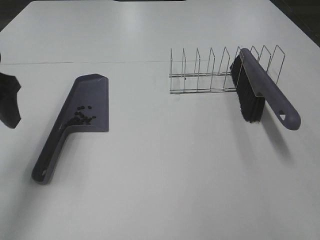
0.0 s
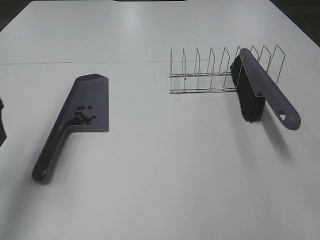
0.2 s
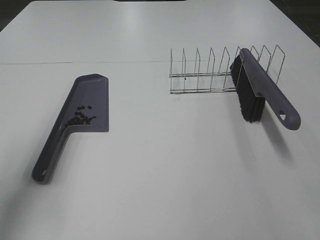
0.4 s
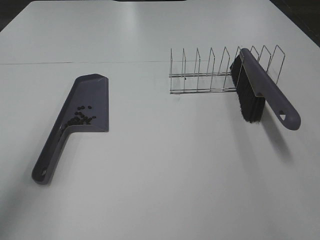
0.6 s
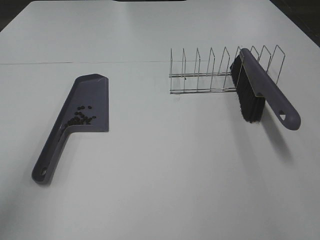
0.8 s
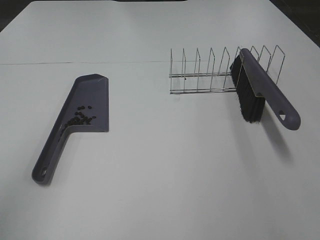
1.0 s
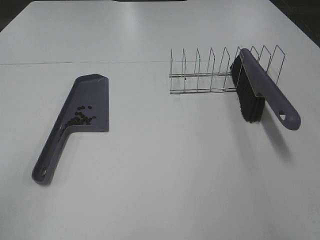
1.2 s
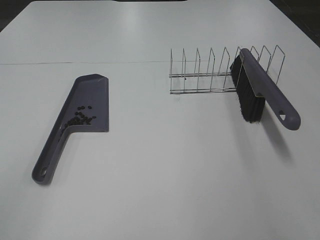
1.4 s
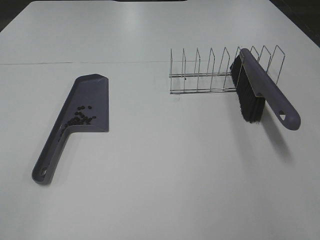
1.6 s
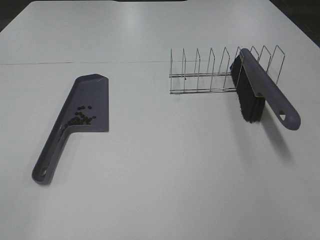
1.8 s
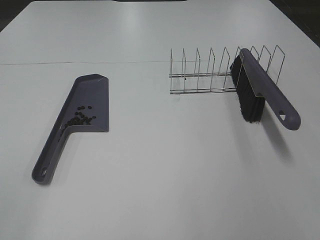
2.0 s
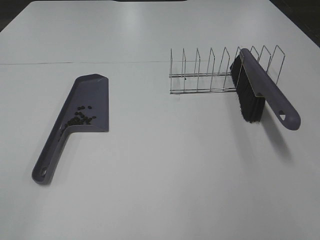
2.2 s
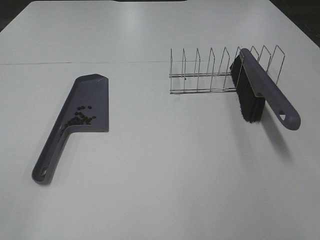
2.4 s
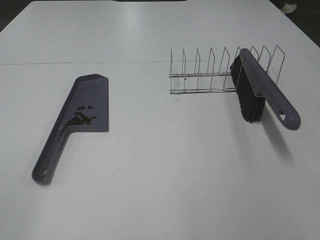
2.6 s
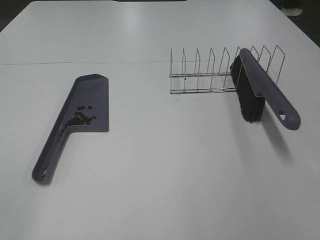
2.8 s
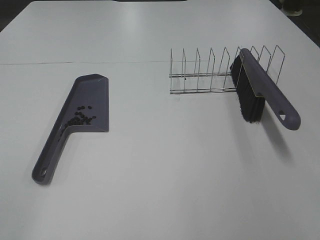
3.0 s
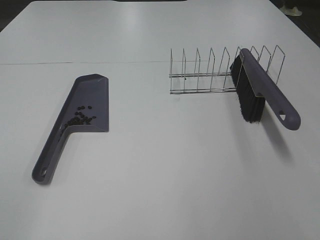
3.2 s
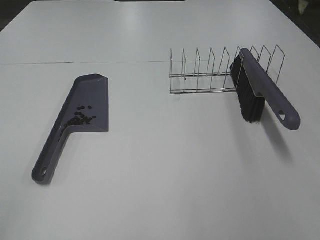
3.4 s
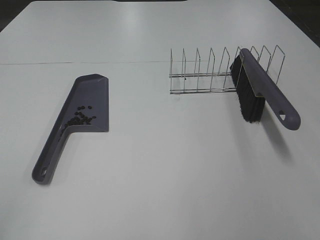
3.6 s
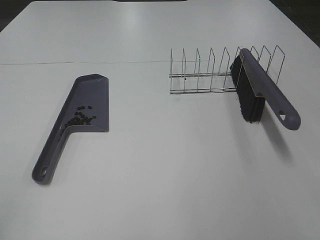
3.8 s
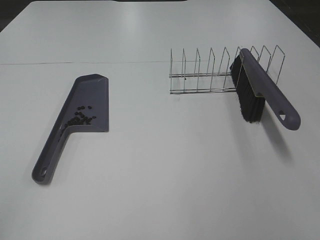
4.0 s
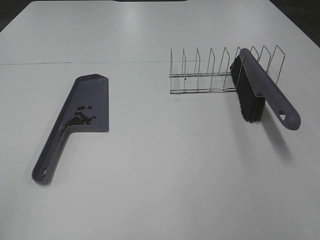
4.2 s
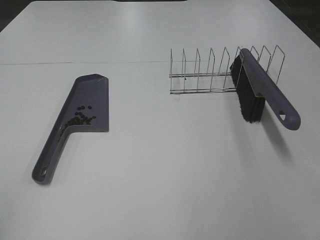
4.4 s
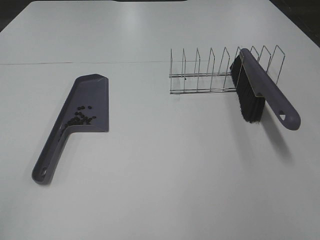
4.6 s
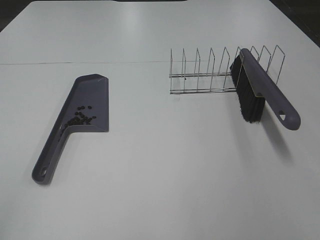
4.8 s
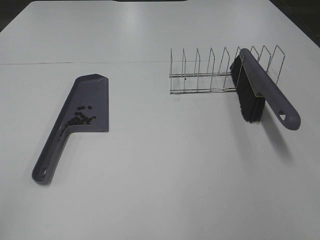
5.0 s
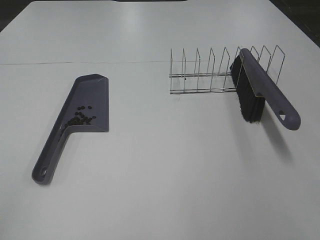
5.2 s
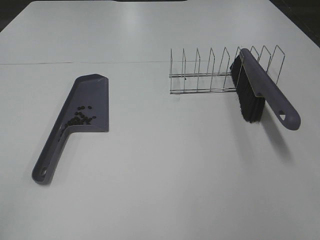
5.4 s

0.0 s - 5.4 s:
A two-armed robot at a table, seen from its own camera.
Task of the whole recording: Sweep Coffee Bean.
0.0 s - 1.4 s: The left gripper moves backward, approximately 25 cm.
4.0 s - 5.4 s: The two grippers keep their place.

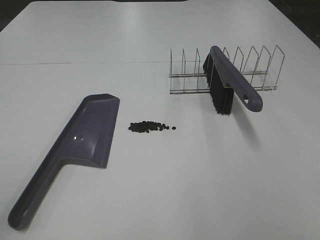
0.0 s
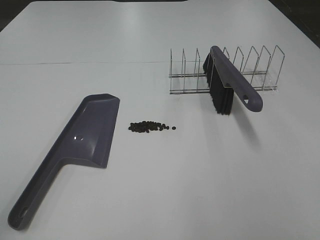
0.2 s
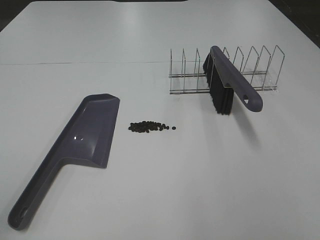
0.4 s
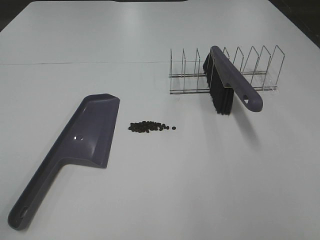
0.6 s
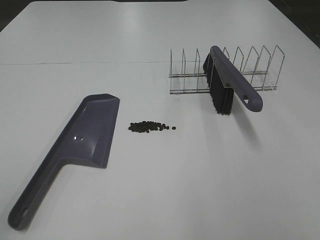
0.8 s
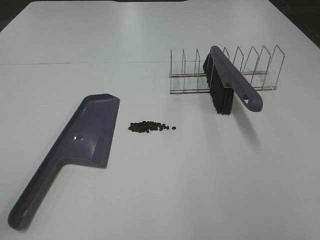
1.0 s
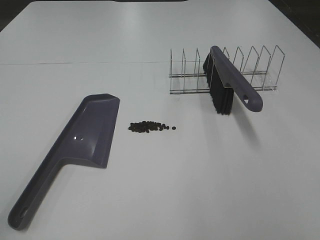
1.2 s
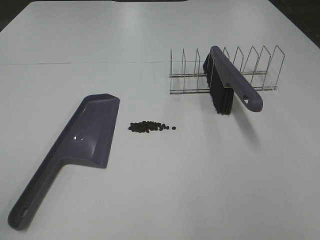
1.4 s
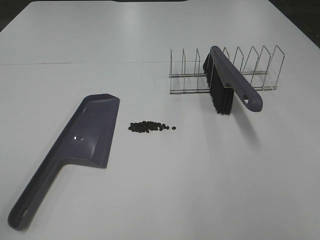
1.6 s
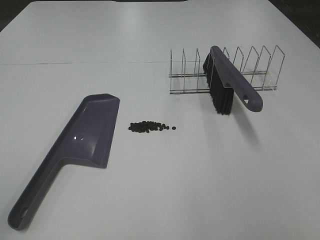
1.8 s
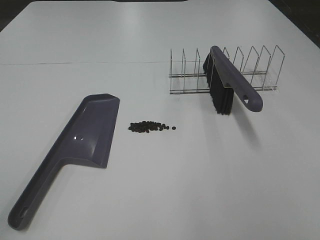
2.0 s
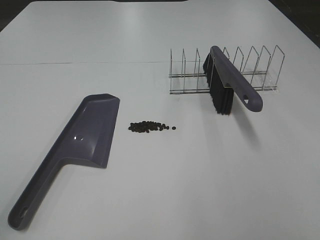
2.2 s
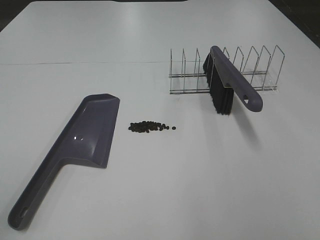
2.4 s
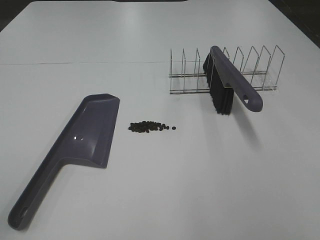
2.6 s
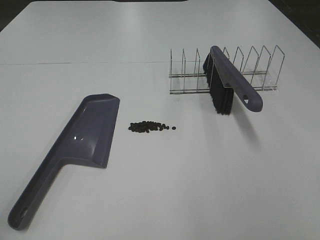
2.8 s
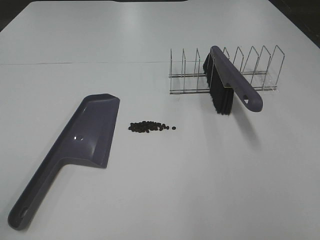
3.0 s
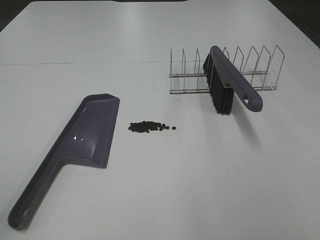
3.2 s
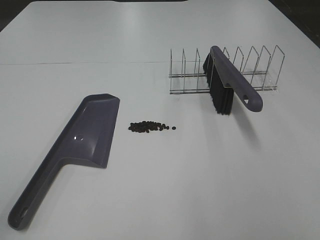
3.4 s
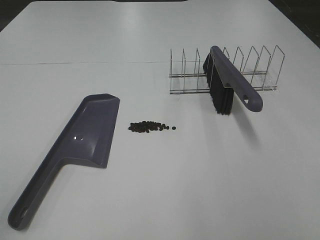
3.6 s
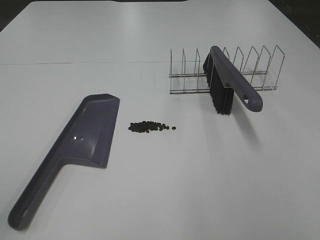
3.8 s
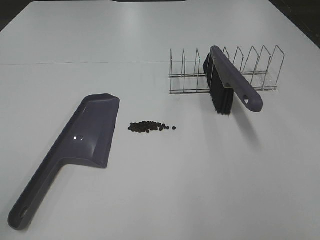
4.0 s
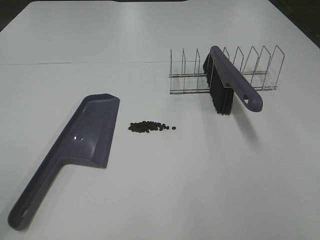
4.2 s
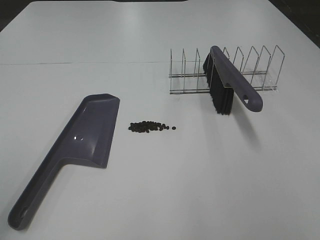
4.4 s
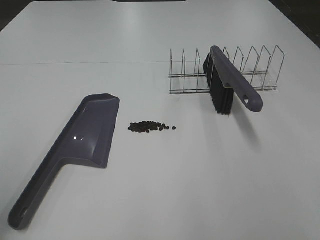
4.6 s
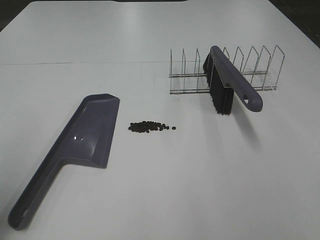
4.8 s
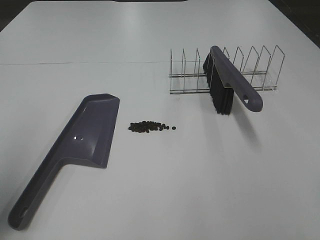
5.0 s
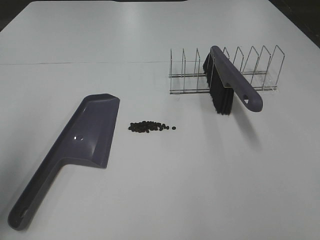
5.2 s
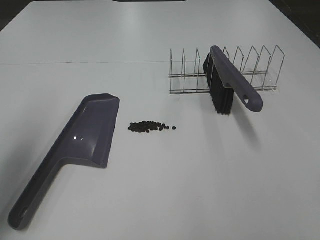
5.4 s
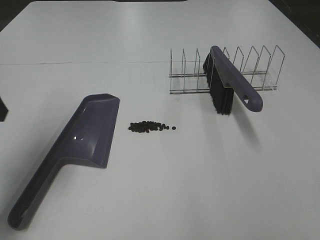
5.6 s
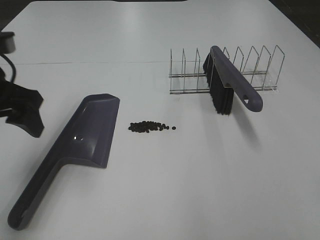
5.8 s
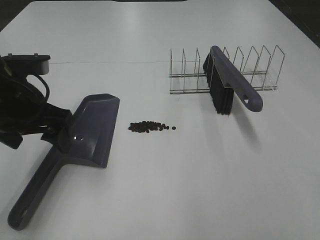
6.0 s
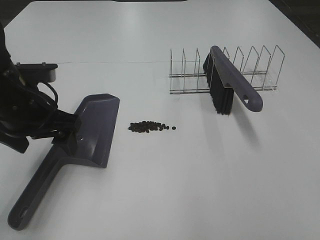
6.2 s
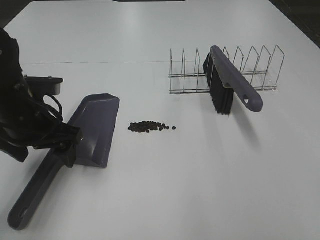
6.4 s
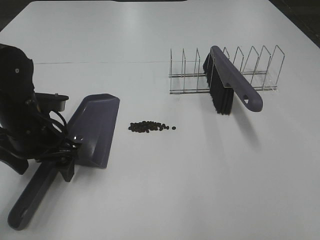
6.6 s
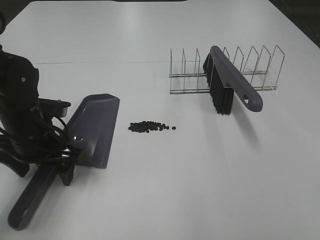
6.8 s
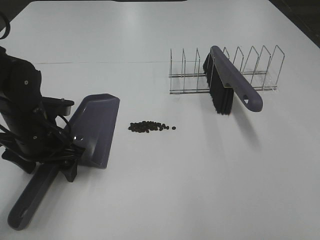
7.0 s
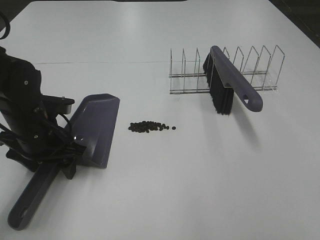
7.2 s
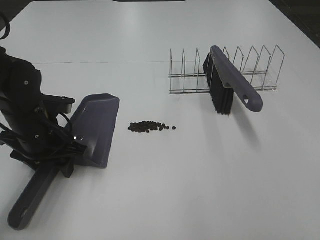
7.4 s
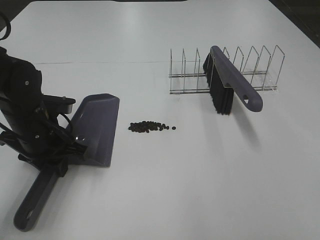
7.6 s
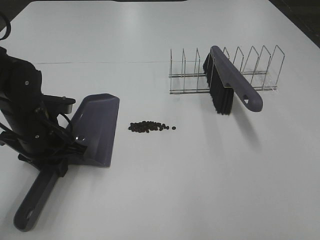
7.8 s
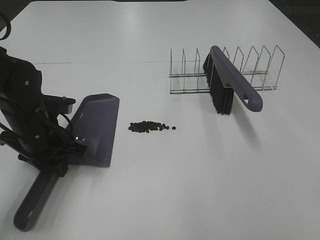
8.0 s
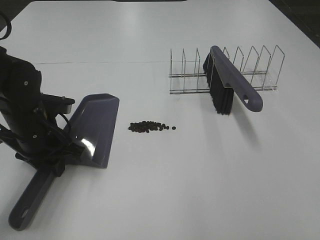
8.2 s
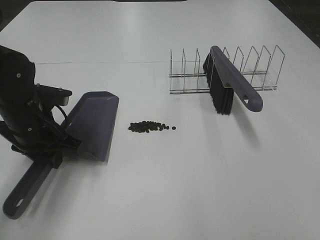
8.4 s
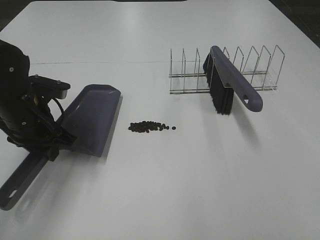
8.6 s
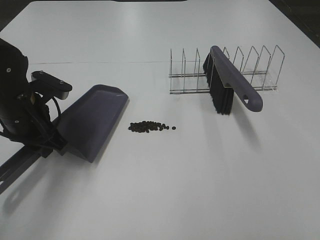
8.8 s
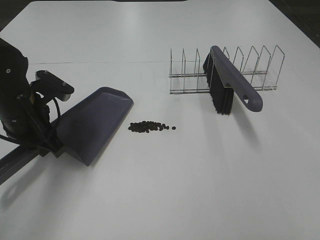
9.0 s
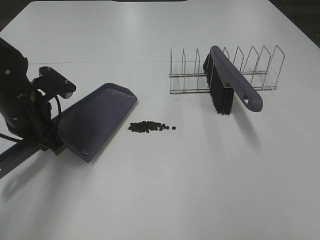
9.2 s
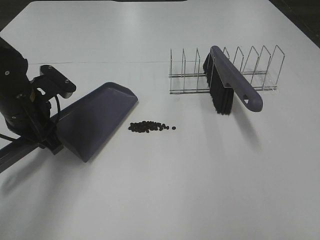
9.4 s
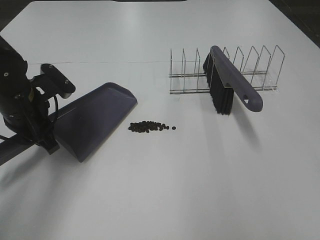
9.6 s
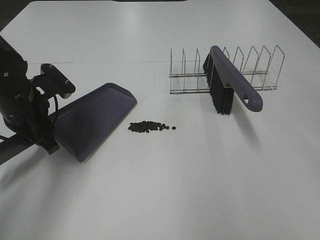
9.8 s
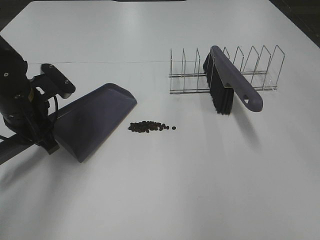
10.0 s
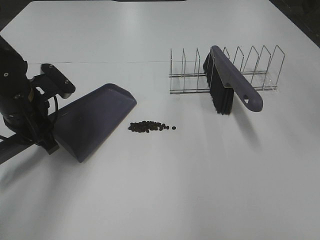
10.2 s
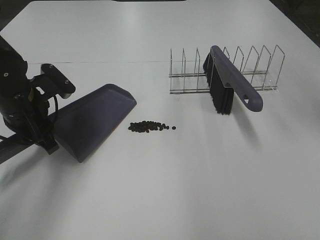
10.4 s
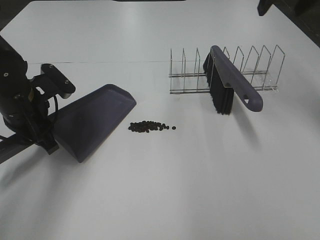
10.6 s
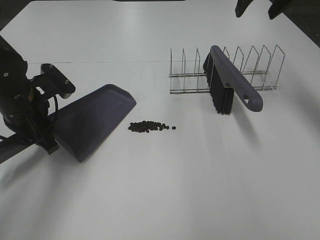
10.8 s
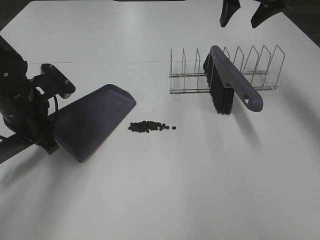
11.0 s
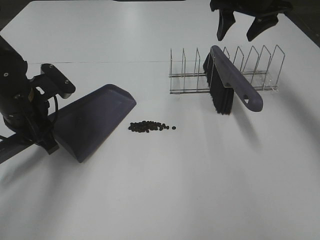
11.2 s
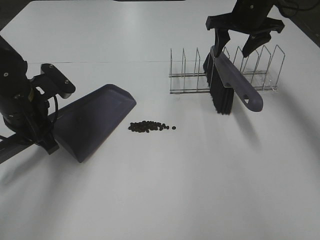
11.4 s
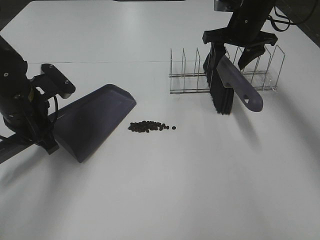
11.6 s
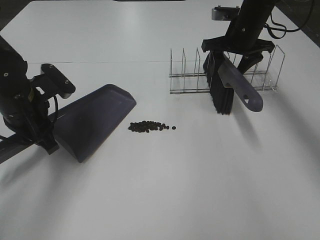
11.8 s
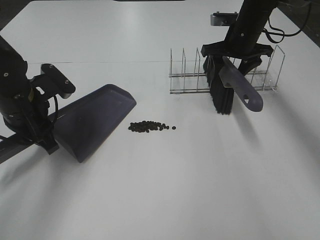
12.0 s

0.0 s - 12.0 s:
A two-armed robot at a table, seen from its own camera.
Task of the whole recording: Sweep Coffee Bean.
Step, 0.0 s - 7.8 s: Left hand: grab the dustpan.
0.0 s - 3.0 s: Both grippers stay put.
4.4 s - 6.0 s: The left gripper goes about 30 cm forward, to the right and downward.
6.0 s - 7.6 s: The left gripper goes roughly 10 cm downward, and closes.
9.0 s - 10.4 s: The right gripper travels forward by some 35 cm.
10.4 s - 12.0 s: The right gripper shifts roughly 25 cm downward and forward.

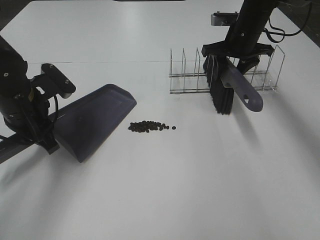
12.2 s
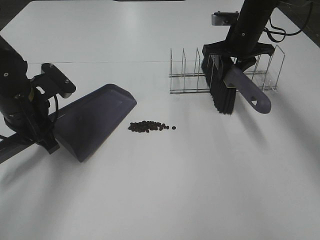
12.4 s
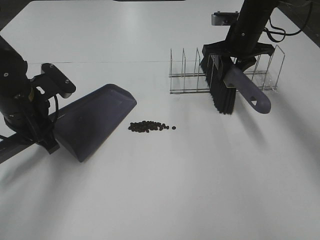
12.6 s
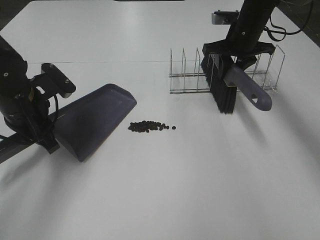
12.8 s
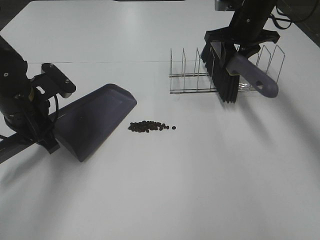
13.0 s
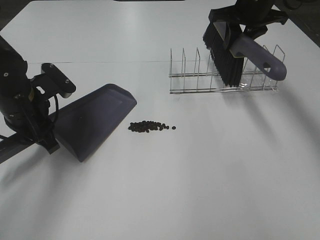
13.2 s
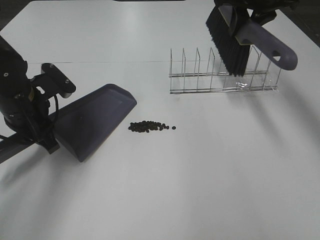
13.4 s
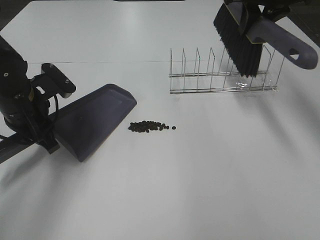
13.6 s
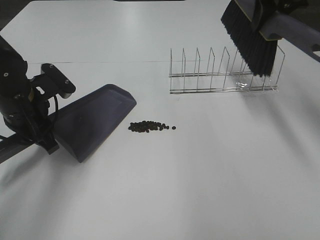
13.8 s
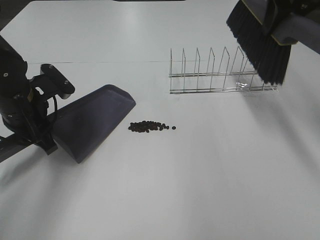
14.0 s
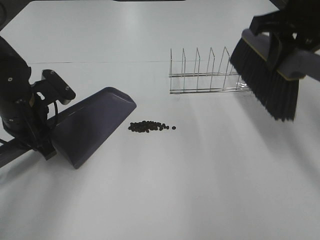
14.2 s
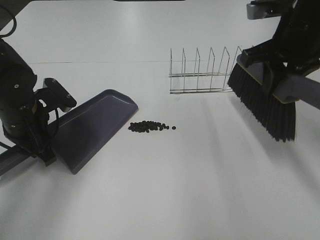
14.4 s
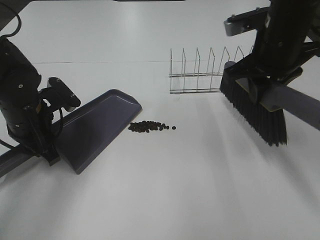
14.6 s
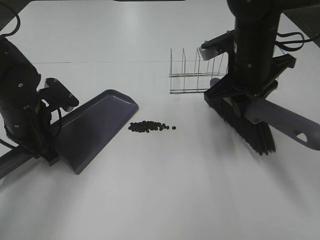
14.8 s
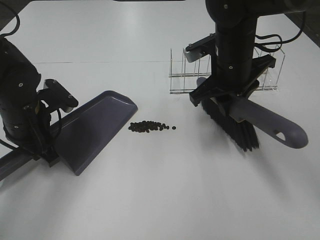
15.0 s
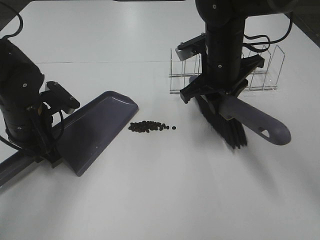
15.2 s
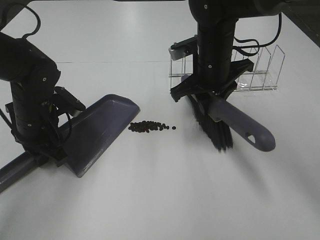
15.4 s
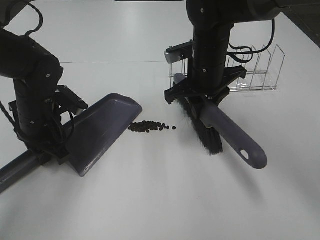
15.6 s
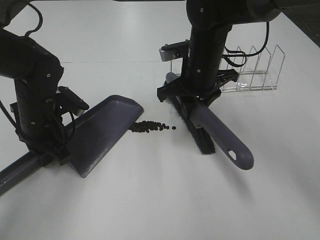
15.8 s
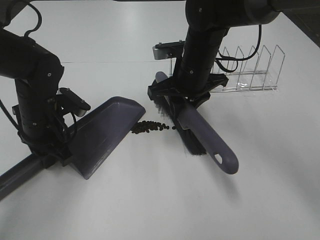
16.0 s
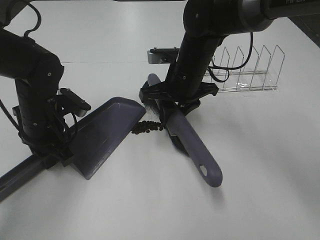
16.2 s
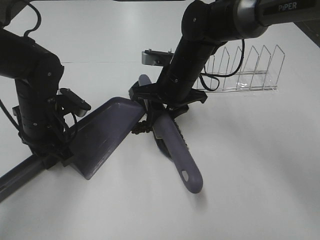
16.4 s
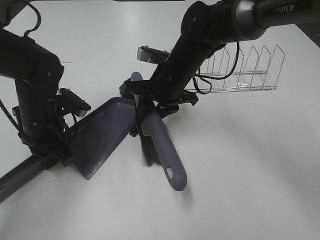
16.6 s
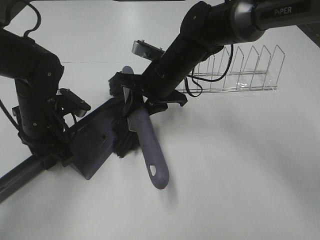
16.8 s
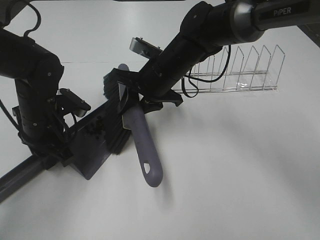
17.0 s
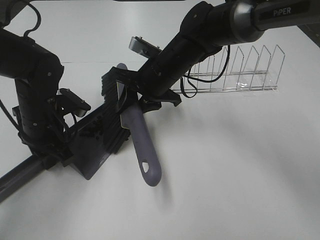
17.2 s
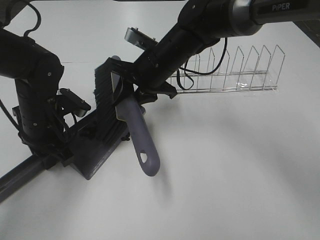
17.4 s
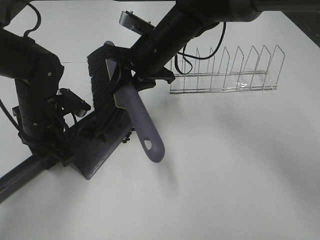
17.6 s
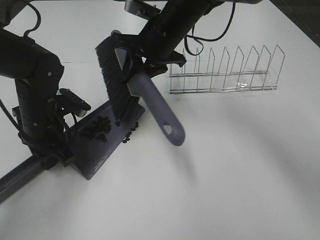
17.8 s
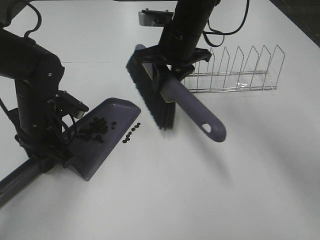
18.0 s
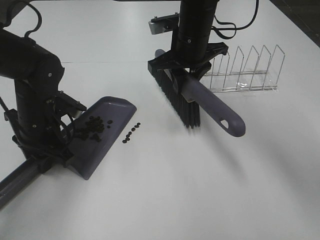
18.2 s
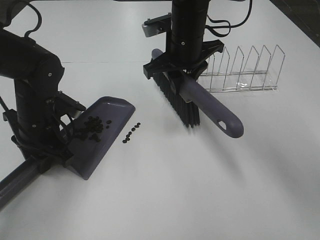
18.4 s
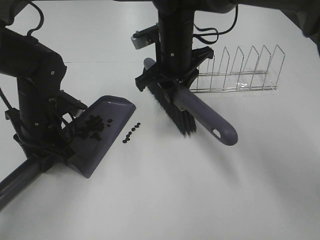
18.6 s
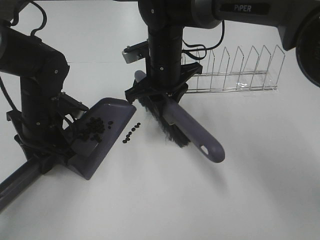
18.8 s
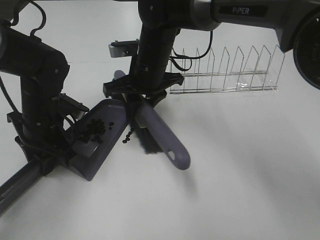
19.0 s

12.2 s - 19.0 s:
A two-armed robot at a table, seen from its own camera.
Task of the whole recording: Sweep Coffee Bean.
12.2 s - 13.6 s: The right gripper moves upward and backward, roughly 15 cm.
13.6 s - 15.0 s: The right gripper is displaced downward, to the left and backward by about 15 cm.
15.0 s - 16.2 s: The right gripper goes roughly 5 cm to the left.
16.2 s - 17.6 s: The right gripper shifts by roughly 5 cm.
